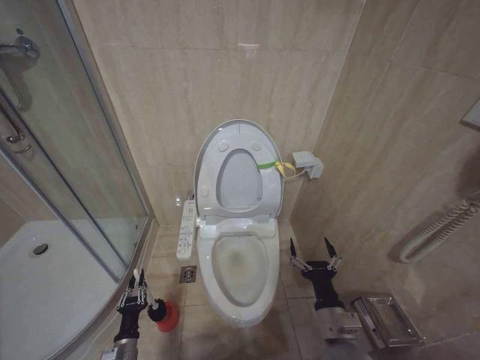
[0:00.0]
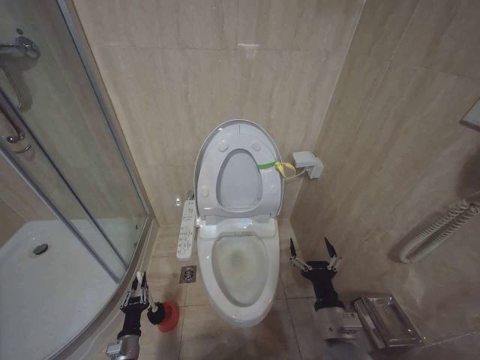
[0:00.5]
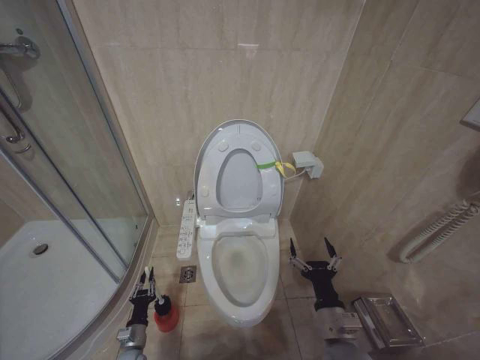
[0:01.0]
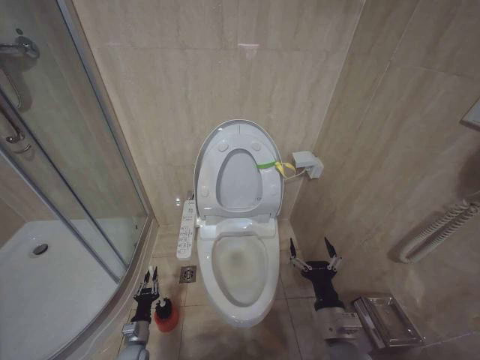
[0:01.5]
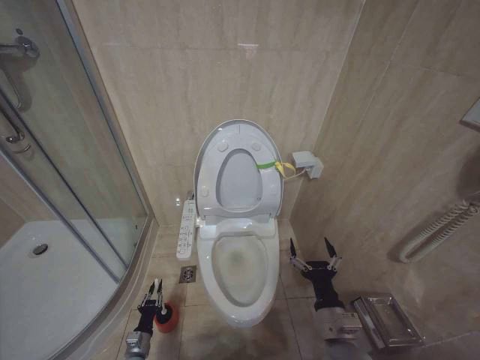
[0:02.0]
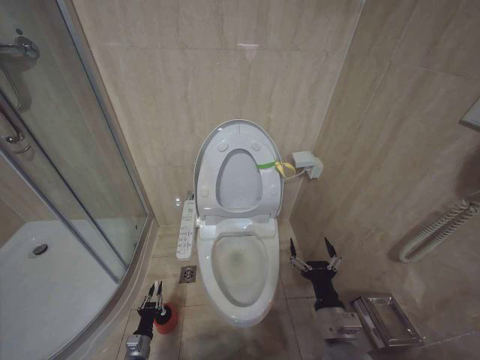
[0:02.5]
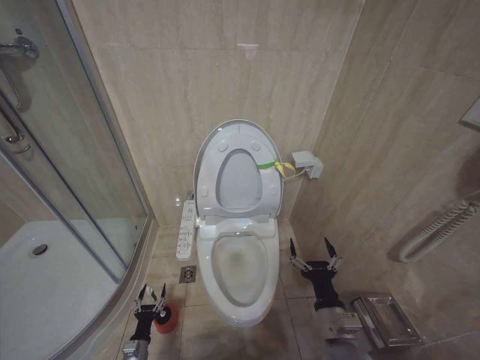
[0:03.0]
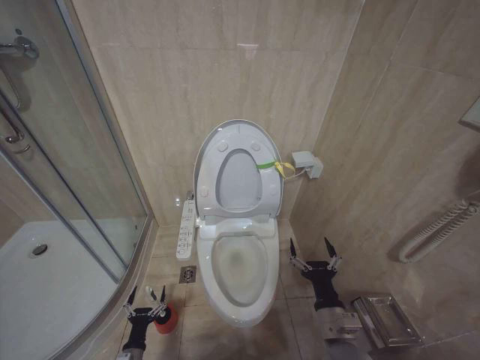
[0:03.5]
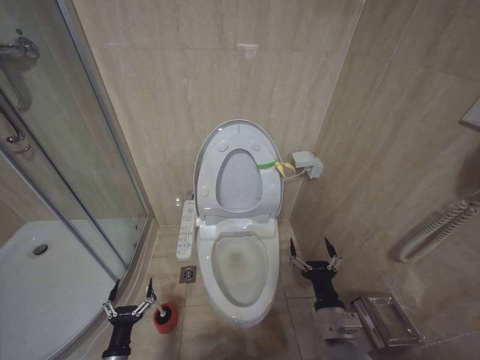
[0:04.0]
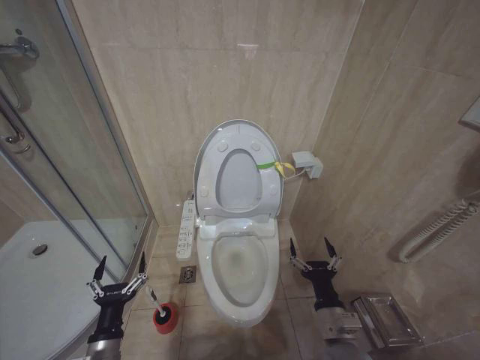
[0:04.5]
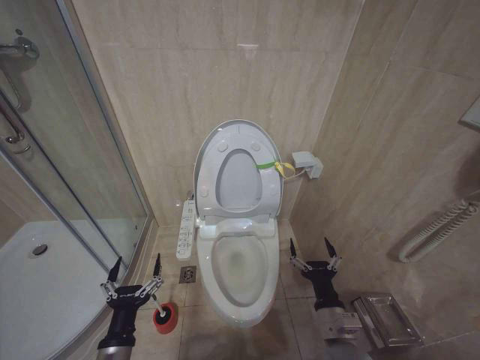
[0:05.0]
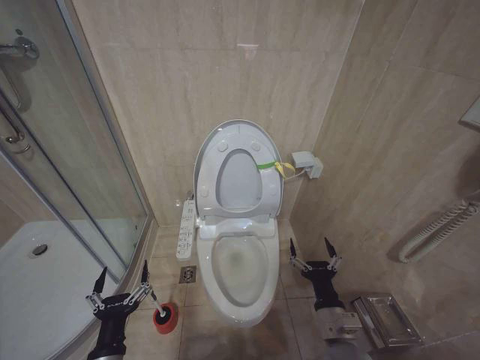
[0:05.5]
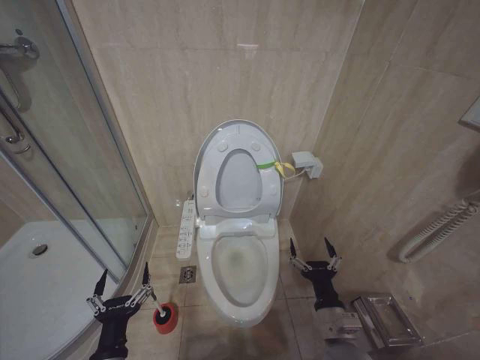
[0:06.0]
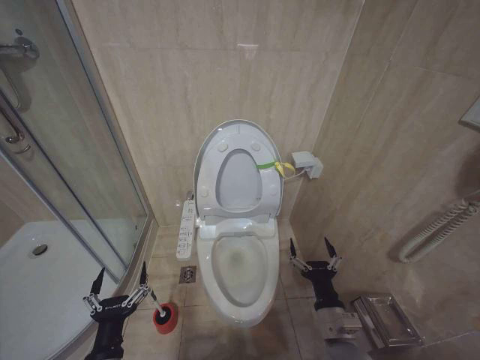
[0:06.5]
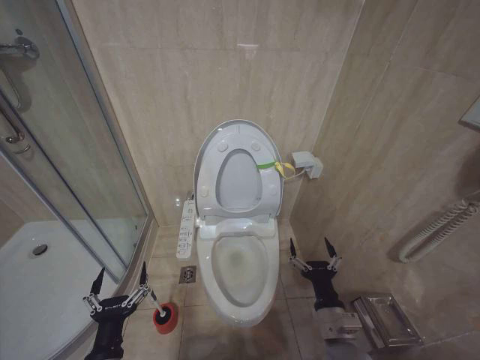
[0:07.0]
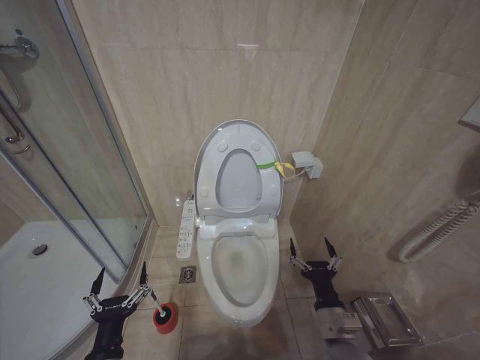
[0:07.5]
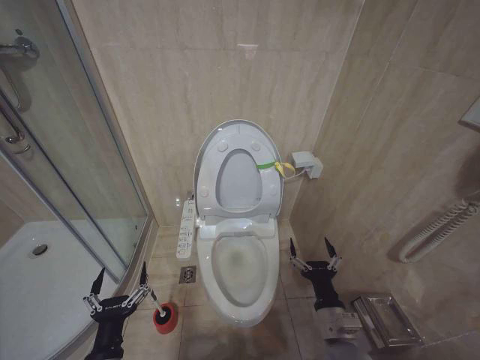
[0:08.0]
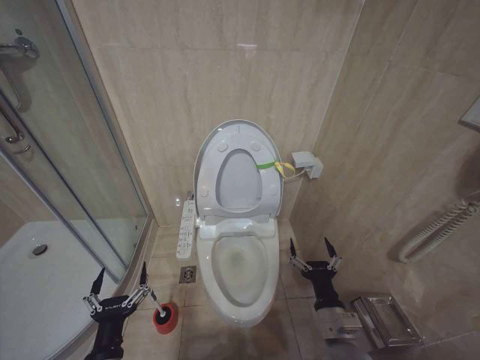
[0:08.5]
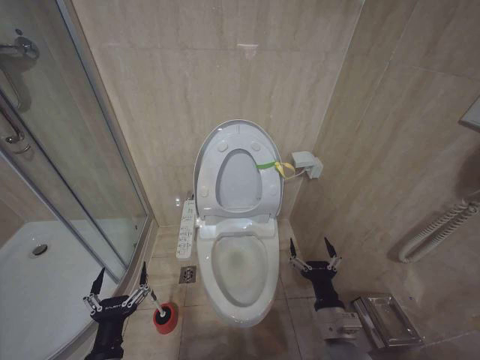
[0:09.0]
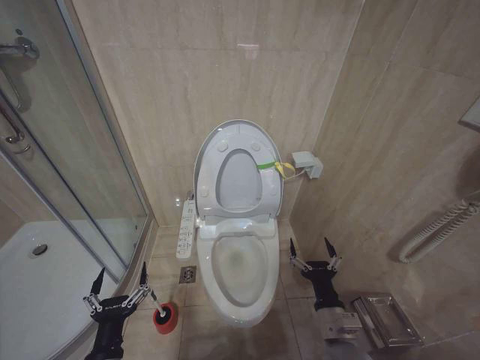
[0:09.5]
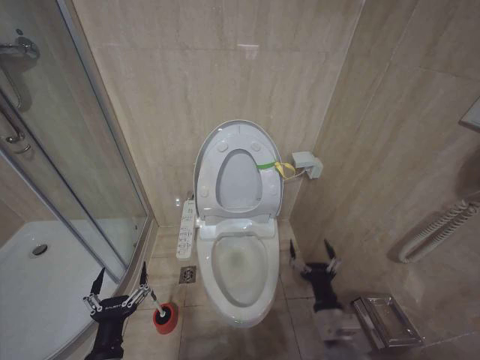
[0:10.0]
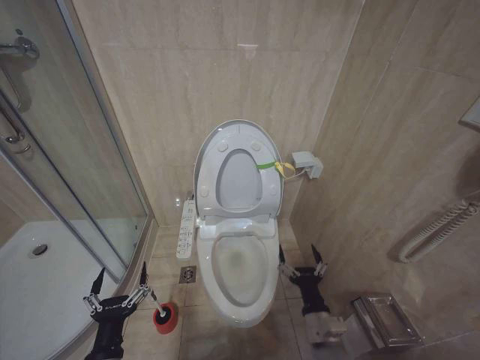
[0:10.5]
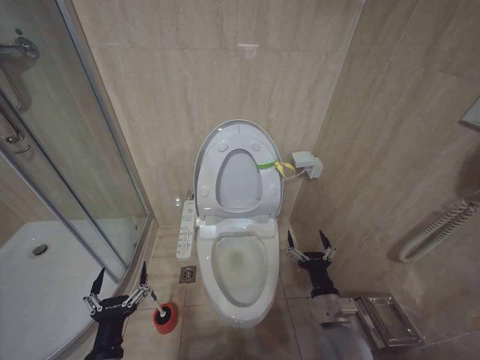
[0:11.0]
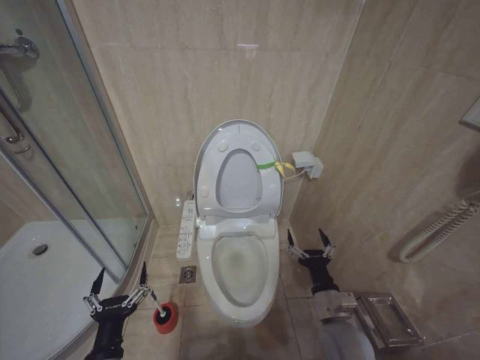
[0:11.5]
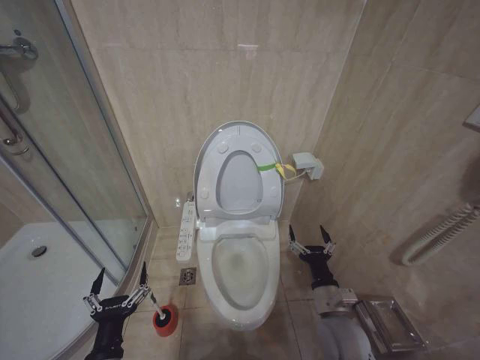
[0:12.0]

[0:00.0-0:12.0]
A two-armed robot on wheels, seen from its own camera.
Task of the whole recording: Open the toilet lid, clean the toilet bowl with a toilet brush, close the toilet lid, and flush.
0:00.0 to 0:02.0: The left gripper goes approximately 10 cm downward.
0:02.0 to 0:04.0: The left gripper heads upward and backward, covering approximately 15 cm, and opens its fingers.
0:04.0 to 0:06.0: The left gripper is displaced upward by some 20 cm.
0:06.0 to 0:10.0: Both grippers stay put.
0:10.0 to 0:12.0: The right gripper moves roughly 5 cm.

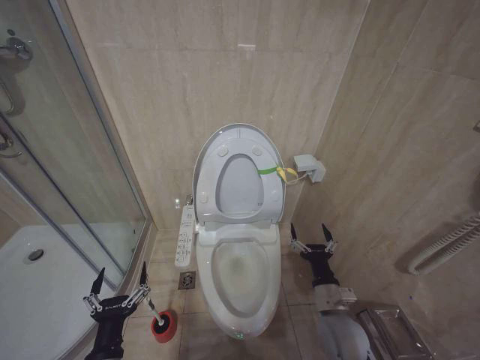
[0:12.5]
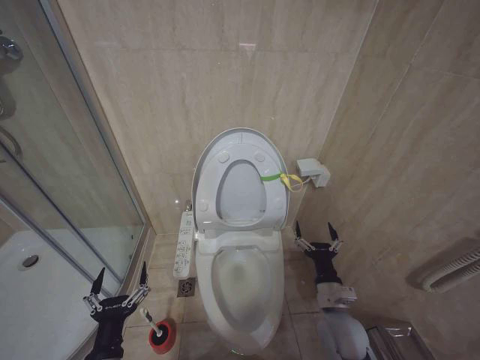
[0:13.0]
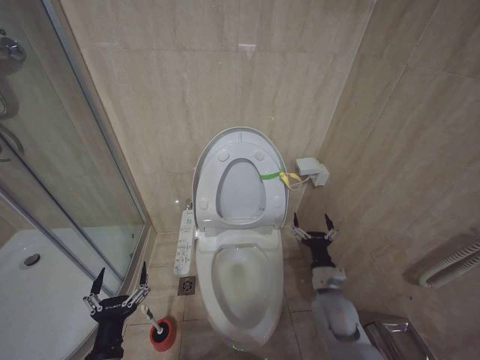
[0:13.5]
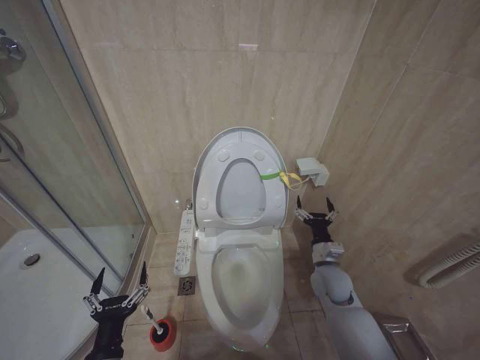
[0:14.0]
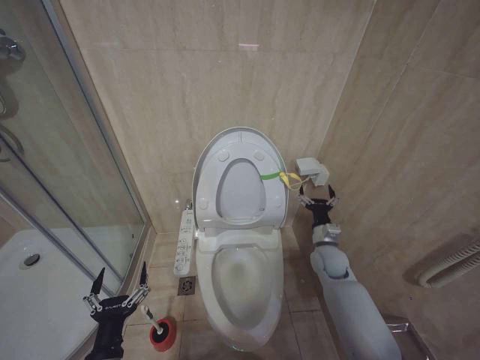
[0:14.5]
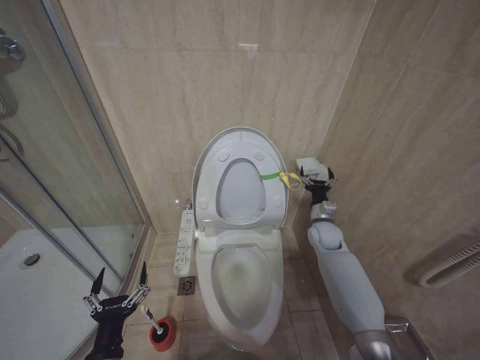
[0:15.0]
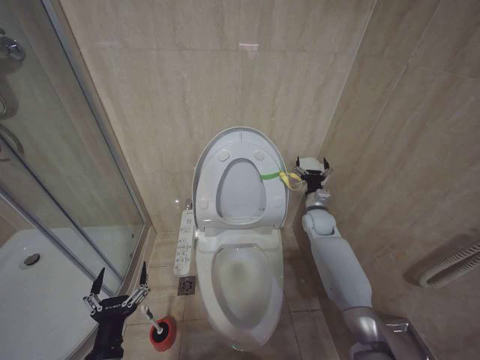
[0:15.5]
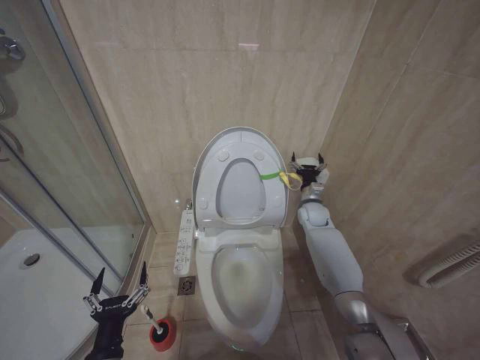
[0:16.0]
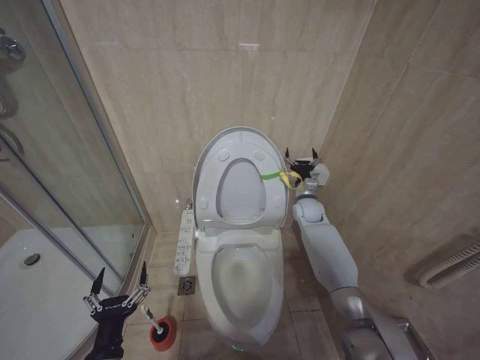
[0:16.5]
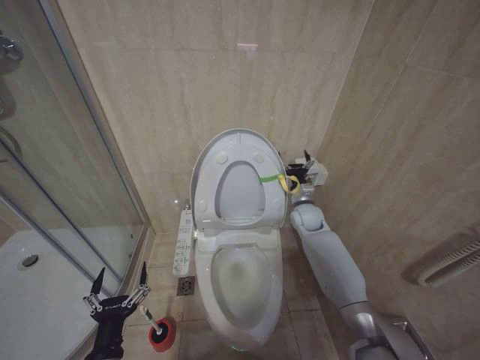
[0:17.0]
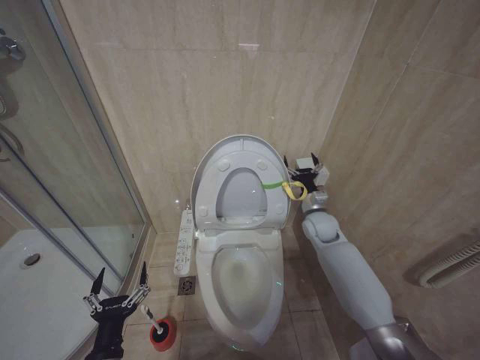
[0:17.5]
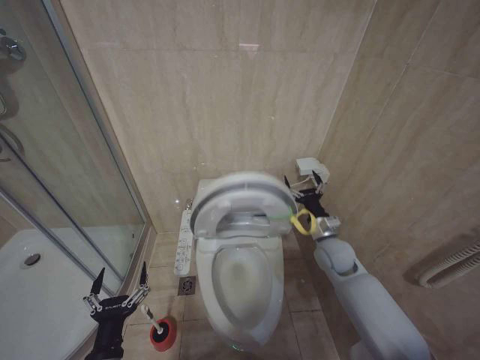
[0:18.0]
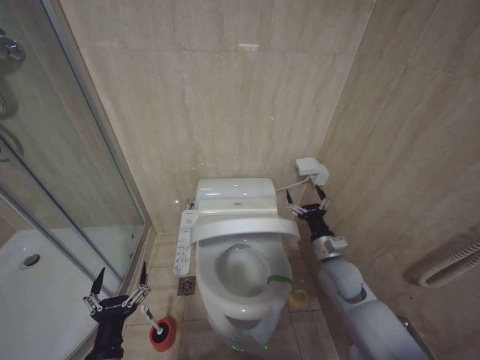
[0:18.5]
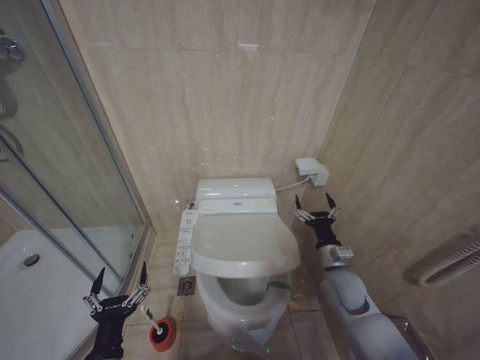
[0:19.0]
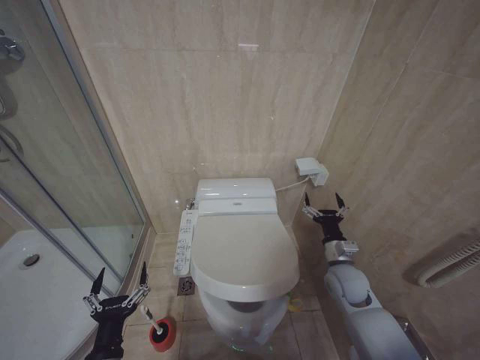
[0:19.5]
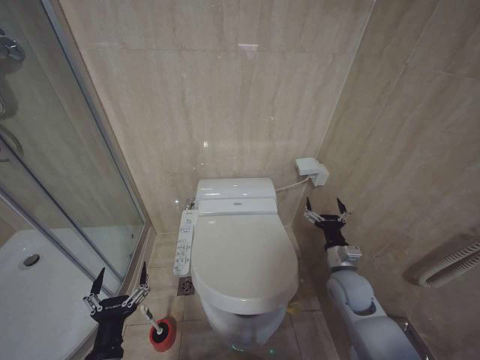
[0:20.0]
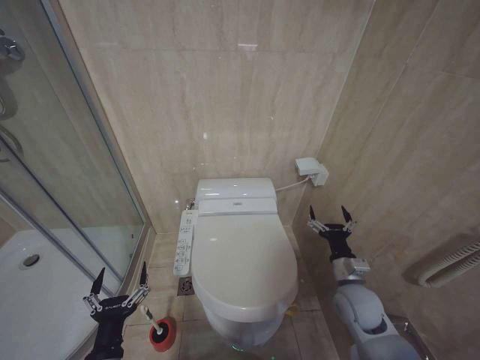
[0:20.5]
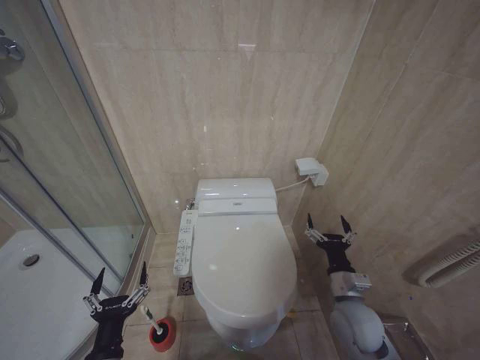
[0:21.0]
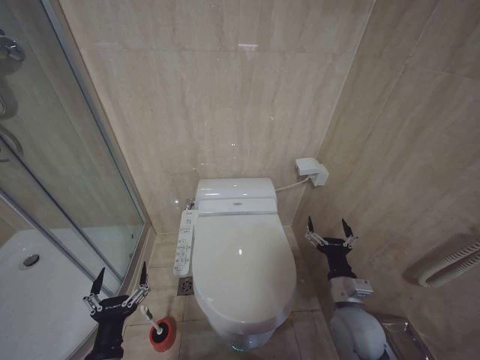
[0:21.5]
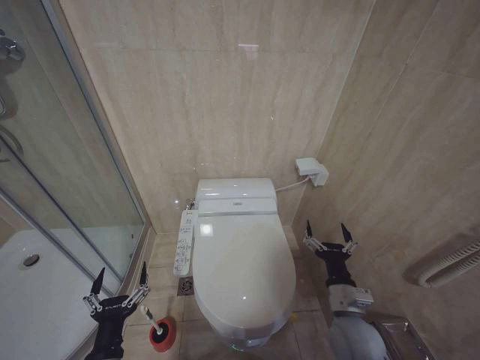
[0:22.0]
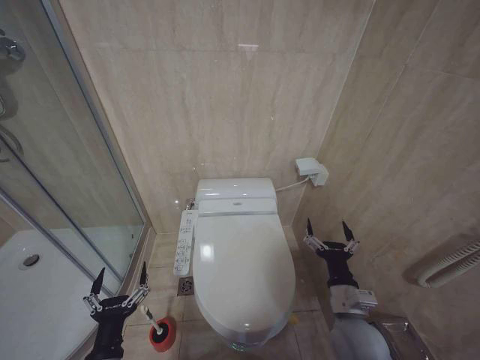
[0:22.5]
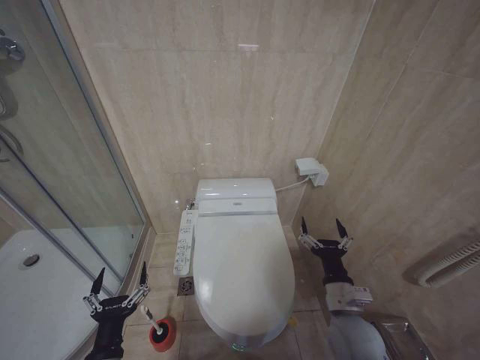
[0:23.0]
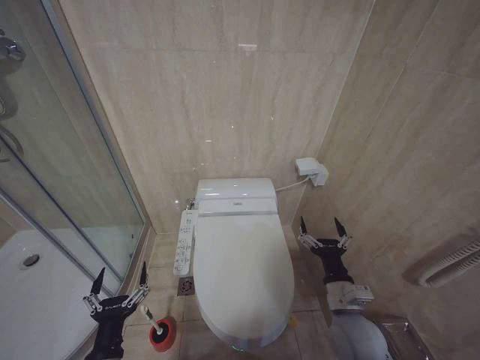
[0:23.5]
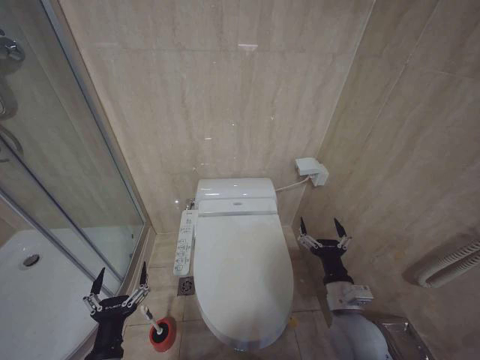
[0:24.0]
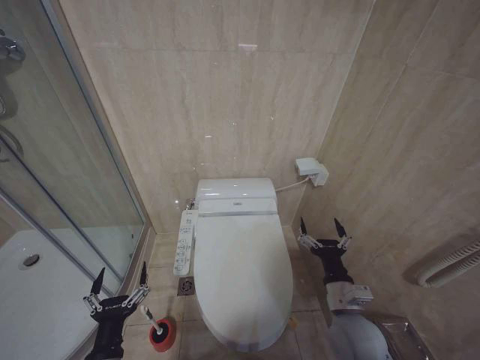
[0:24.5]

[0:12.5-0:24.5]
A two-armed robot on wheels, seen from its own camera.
Task of the whole recording: Open the toilet lid, clean the toilet bowl with a toilet brush, close the toilet lid, and flush.
0:12.5 to 0:14.5: The right gripper heads forward, covering approximately 15 cm.
0:14.5 to 0:16.5: The right gripper is displaced forward and upward by about 15 cm.
0:16.5 to 0:18.5: The right gripper goes about 20 cm backward.
0:18.5 to 0:20.5: The right gripper is displaced backward by roughly 5 cm.
0:20.5 to 0:22.5: The right gripper is displaced backward and to the left by approximately 10 cm.
0:22.5 to 0:24.5: The two grippers keep their place.

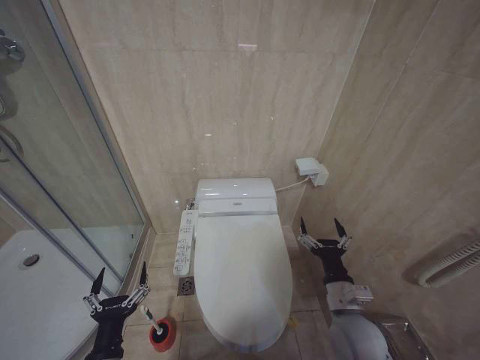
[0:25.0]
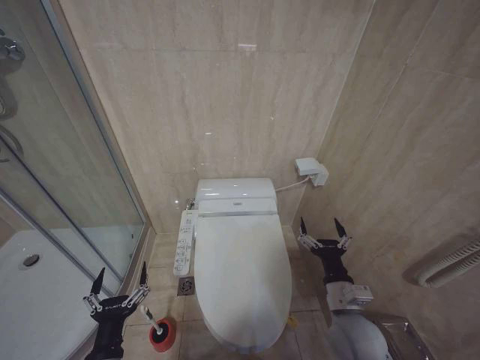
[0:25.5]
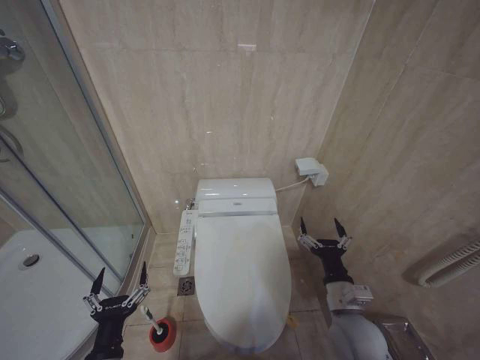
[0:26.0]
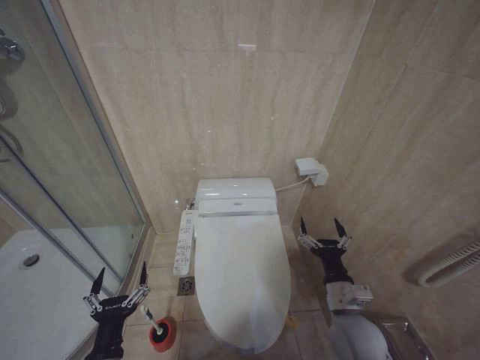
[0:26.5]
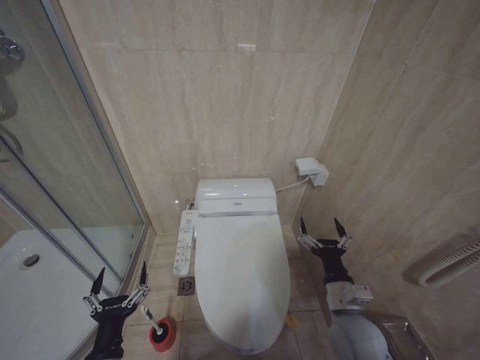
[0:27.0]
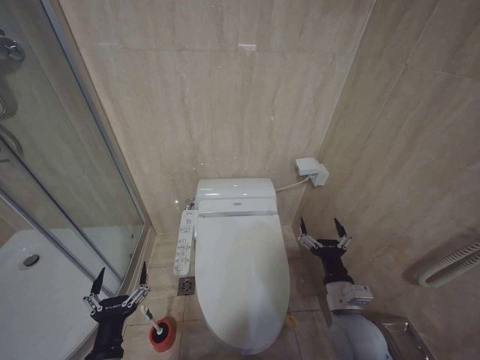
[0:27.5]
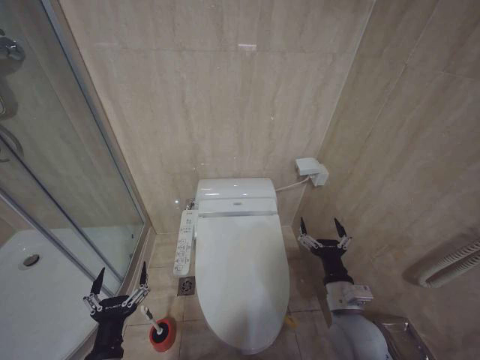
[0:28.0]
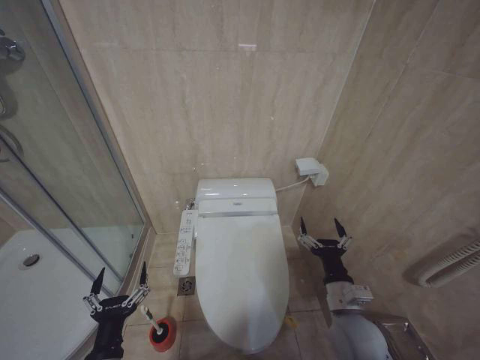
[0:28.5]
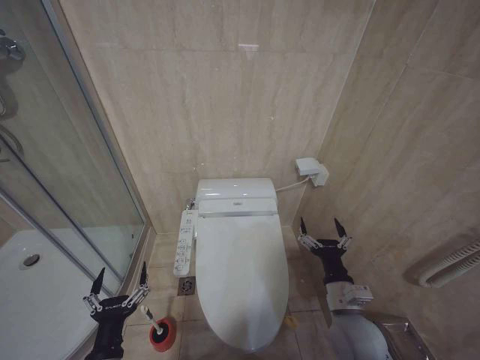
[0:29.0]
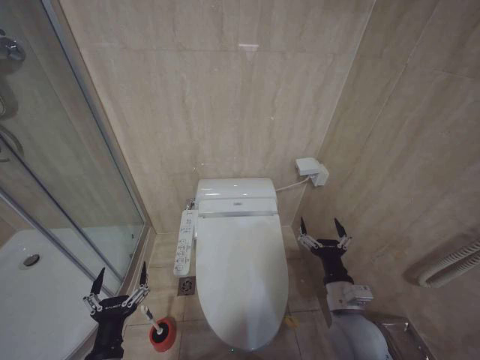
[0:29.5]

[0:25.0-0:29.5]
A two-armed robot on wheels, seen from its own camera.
Task of the whole recording: Open the toilet lid, clean the toilet bowl with a toilet brush, close the toilet lid, and flush.
0:25.0 to 0:29.5: Both grippers stay about where they are.
